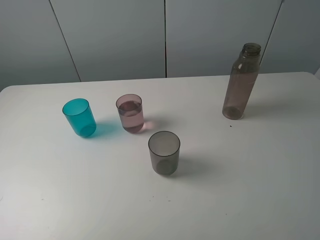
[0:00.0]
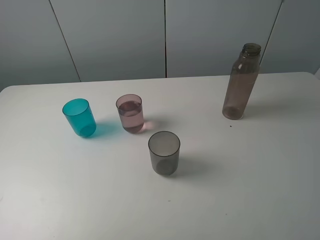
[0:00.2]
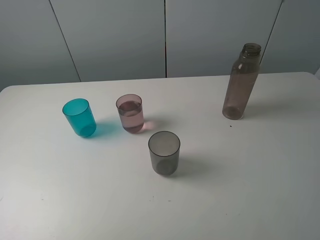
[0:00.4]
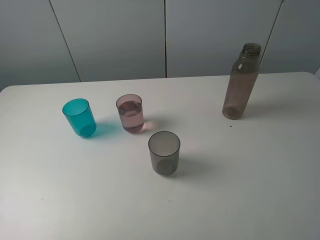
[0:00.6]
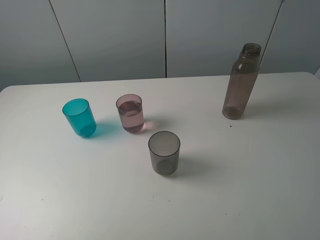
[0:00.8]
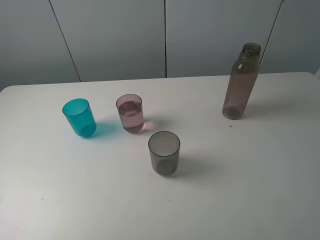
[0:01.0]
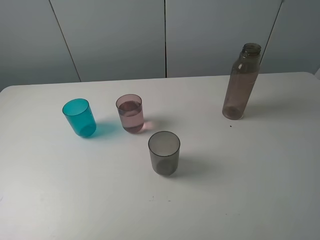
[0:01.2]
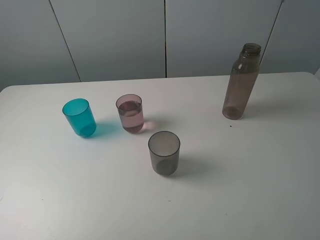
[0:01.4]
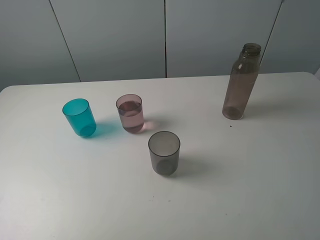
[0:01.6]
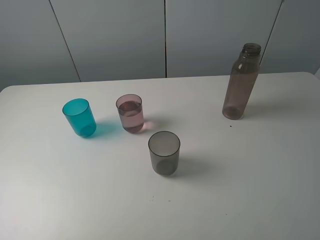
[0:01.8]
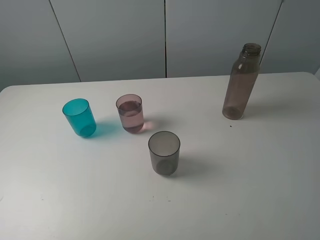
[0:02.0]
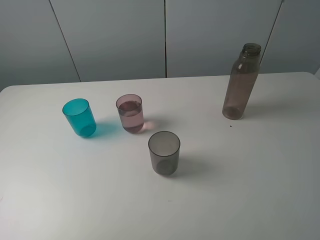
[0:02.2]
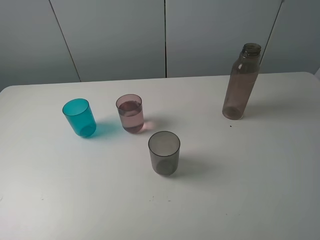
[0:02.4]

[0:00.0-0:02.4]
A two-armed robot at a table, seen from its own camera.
Task of the whole recording: pick up the bottle filled with water and pour water into the middle cup of the three cups.
0:01.2 to 0:02.4: Both grippers stay about where they are.

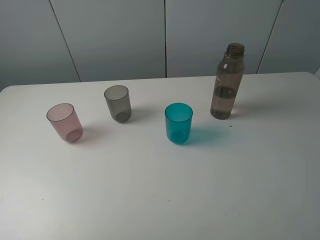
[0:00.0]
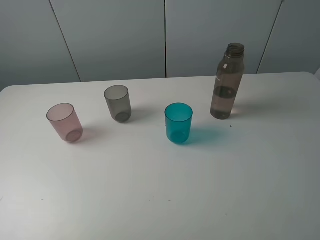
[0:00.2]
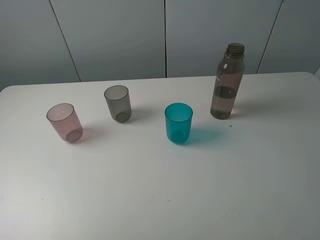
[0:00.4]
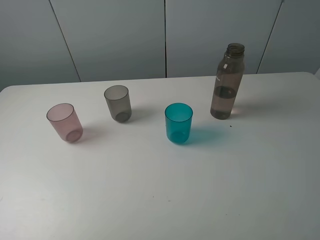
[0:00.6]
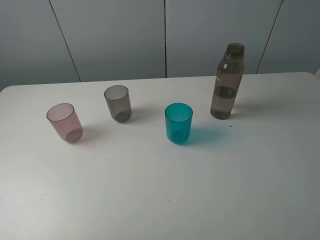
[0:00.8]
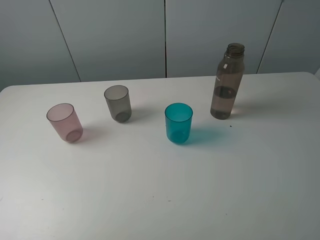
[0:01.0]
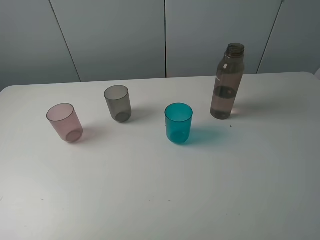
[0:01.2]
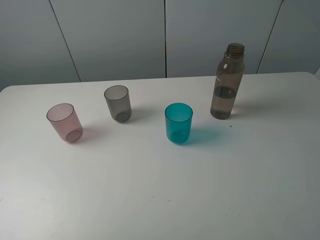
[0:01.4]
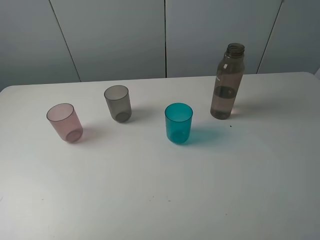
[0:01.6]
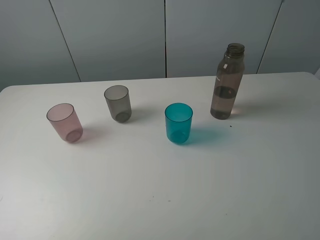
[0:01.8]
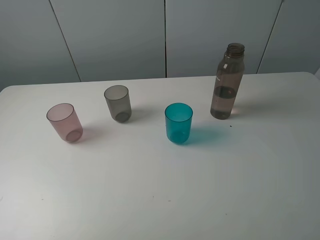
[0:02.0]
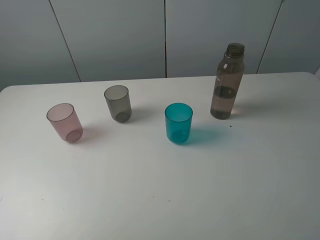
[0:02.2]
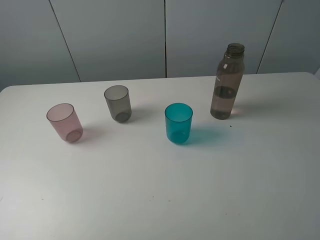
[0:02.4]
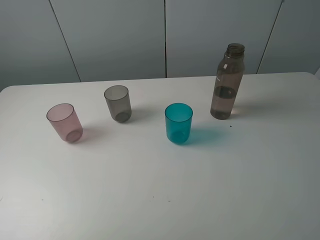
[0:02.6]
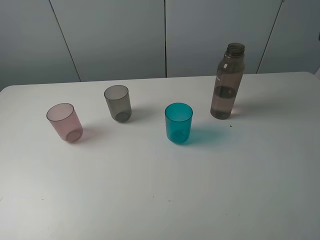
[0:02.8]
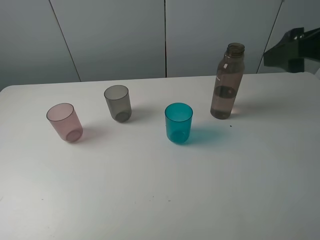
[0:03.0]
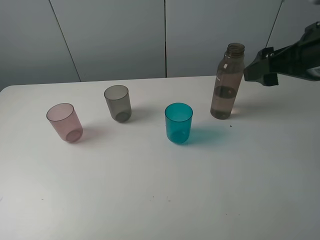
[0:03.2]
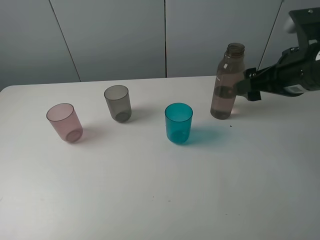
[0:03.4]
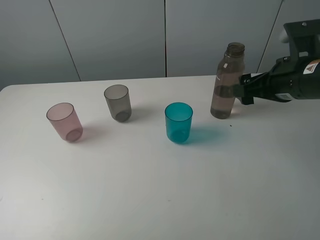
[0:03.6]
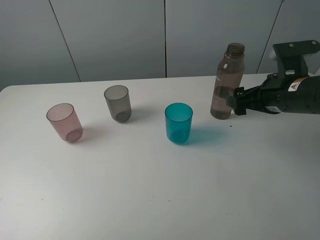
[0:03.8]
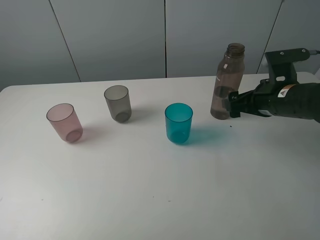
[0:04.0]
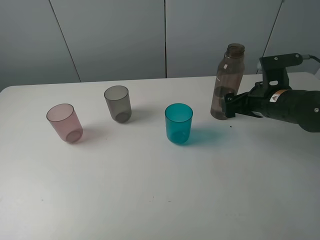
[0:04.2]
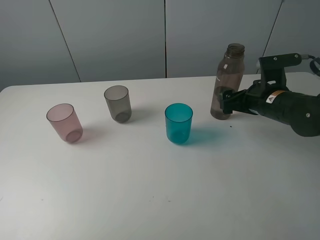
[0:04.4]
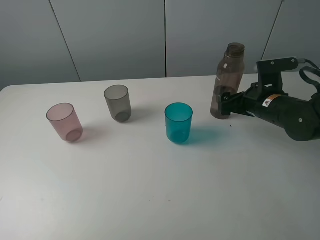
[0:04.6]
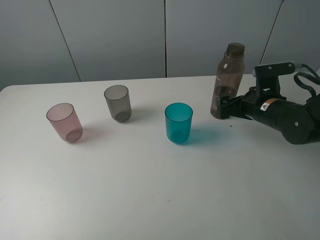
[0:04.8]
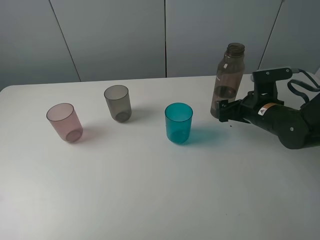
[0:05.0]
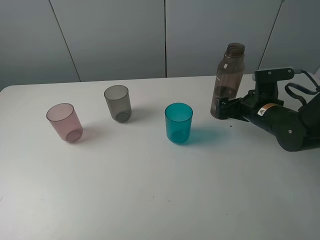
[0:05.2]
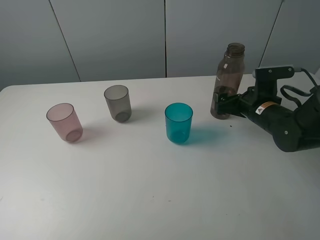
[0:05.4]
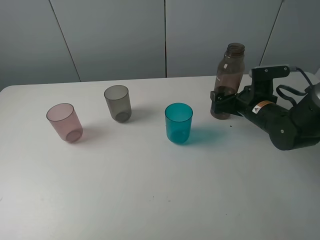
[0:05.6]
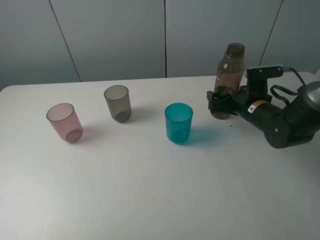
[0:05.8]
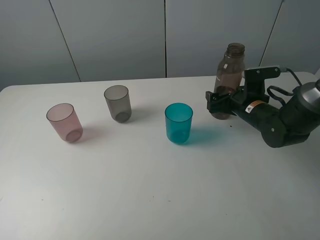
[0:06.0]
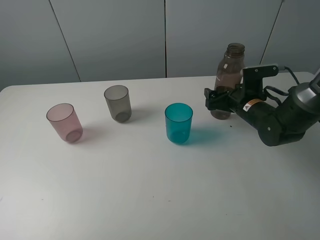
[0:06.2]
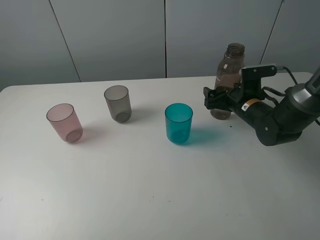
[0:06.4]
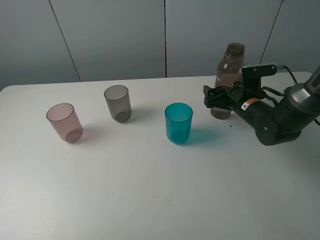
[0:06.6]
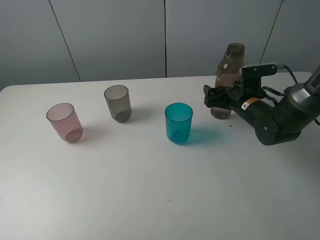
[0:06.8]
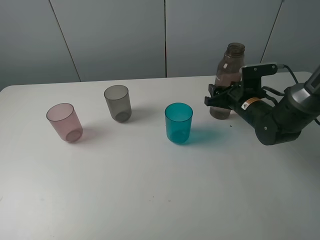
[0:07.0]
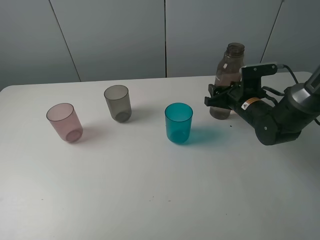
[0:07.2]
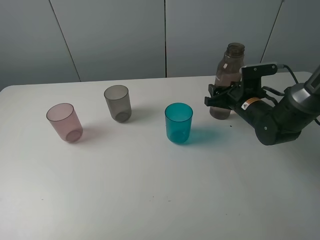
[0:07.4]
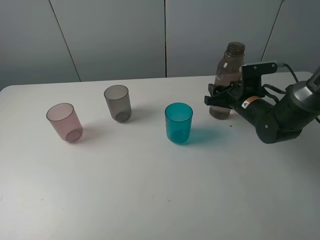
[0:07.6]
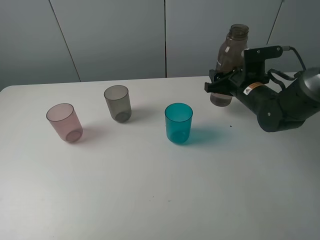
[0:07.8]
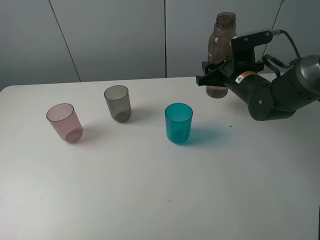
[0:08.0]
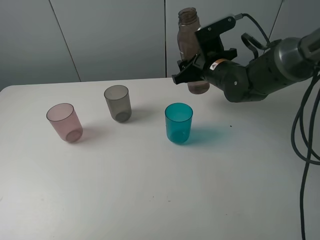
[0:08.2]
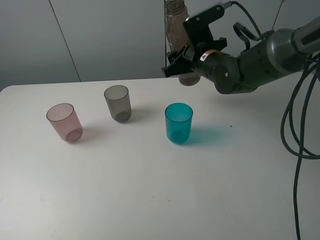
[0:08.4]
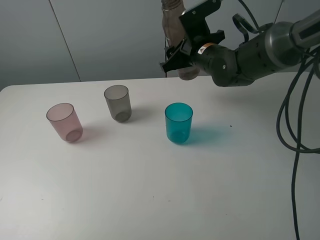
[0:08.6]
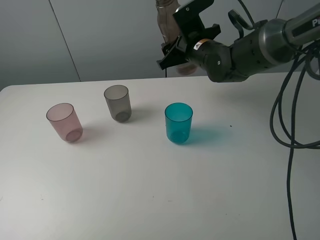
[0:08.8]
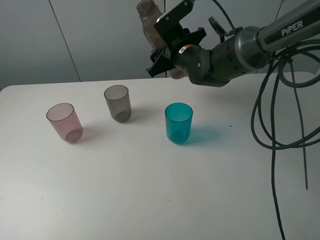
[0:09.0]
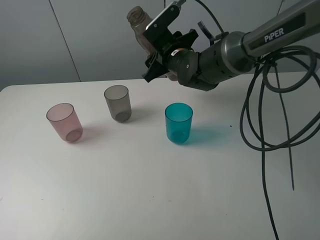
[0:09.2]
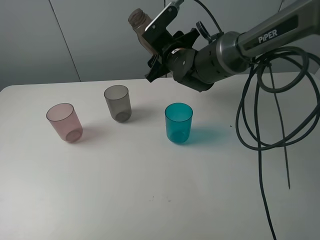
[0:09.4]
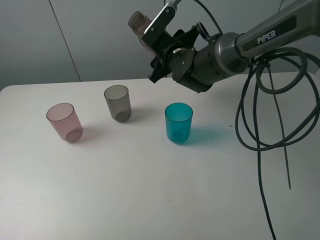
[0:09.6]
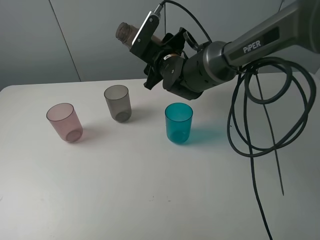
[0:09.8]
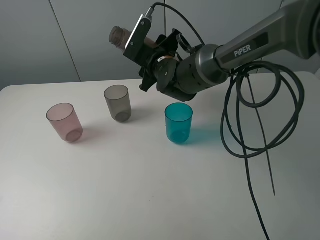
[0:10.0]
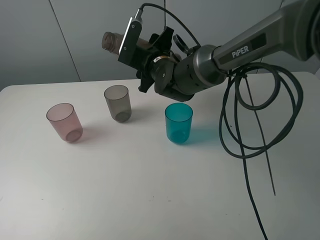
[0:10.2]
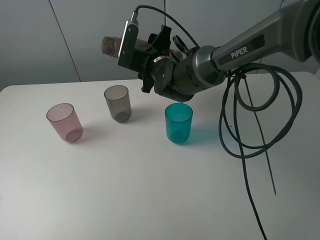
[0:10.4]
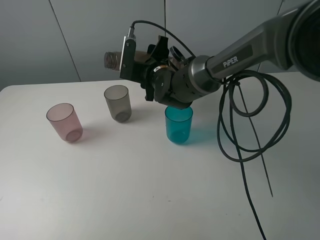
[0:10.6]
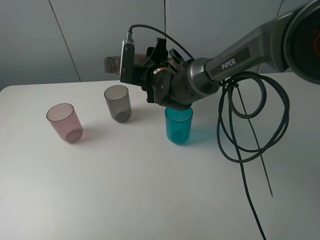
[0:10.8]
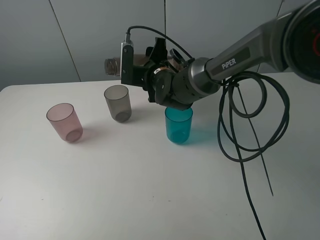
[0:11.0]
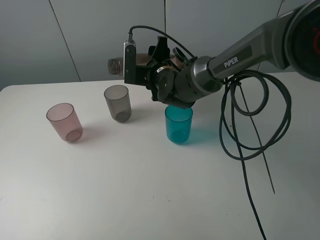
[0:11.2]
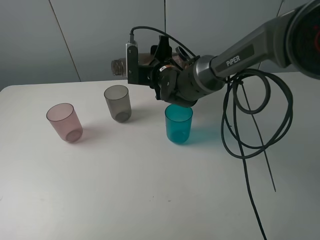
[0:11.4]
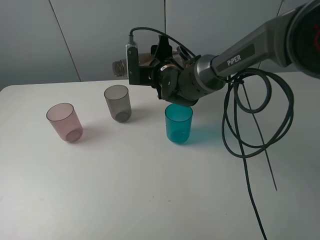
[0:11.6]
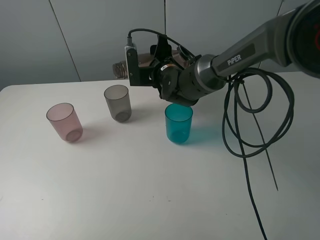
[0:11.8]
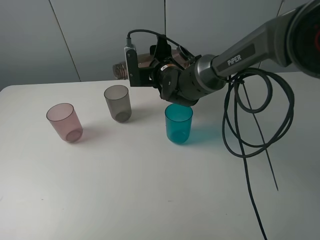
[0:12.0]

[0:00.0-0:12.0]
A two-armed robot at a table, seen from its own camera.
Task of the whole recording: pick up the bottle filled with water and pour water into the middle cup of the three cups.
Step, 0:00.0 to 0:07.2: Grasp the brown bottle with the right gripper.
0:01.6 to 0:03.0: The right gripper is displaced forward by roughly 20 cm.
0:03.0 to 0:04.4: The right gripper goes about 20 cm downward and forward.
0:04.4 to 0:06.0: The right gripper goes about 5 cm downward.
0:06.0 to 0:07.6: The right gripper closes its fingers.
0:07.6 to 0:09.0: The right gripper is displaced to the left and upward by roughly 15 cm.
0:09.0 to 0:10.4: The right gripper is displaced to the left by about 5 cm.

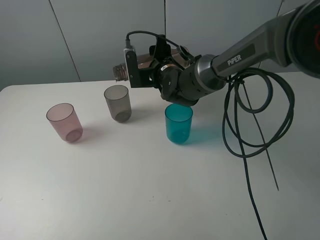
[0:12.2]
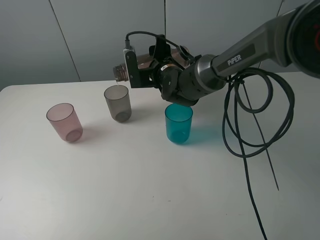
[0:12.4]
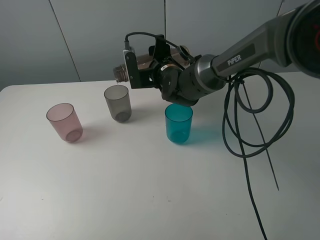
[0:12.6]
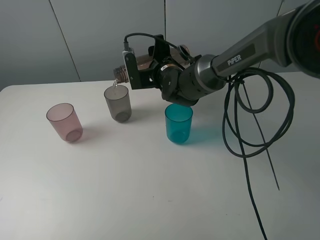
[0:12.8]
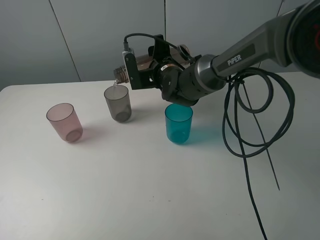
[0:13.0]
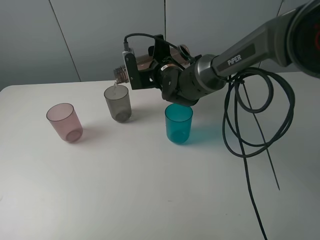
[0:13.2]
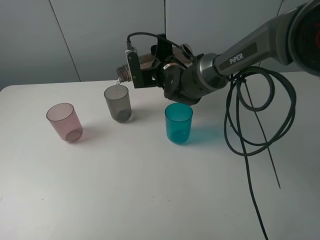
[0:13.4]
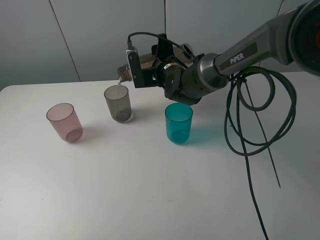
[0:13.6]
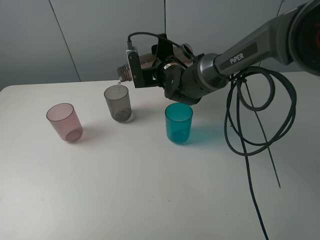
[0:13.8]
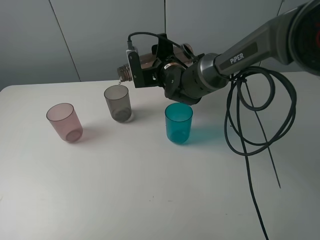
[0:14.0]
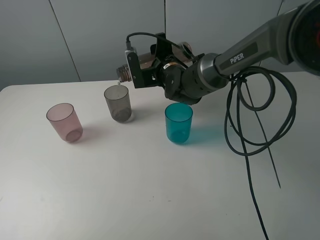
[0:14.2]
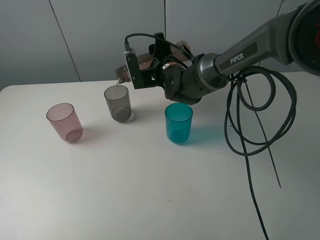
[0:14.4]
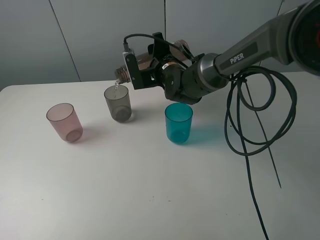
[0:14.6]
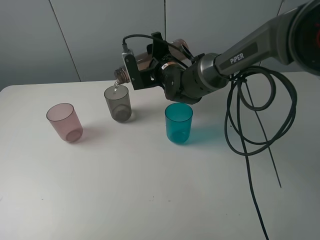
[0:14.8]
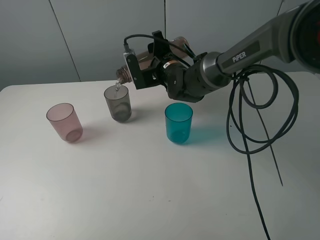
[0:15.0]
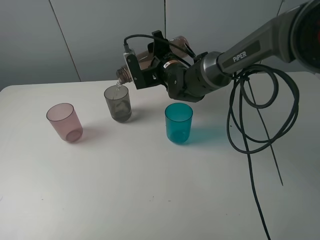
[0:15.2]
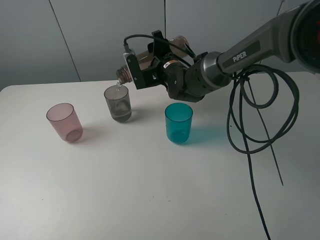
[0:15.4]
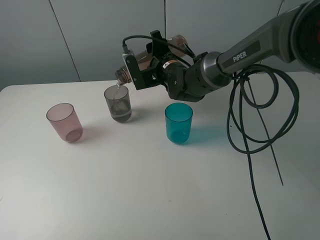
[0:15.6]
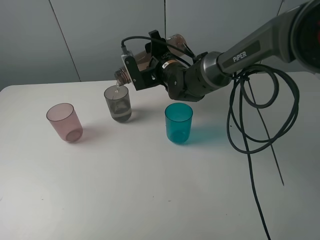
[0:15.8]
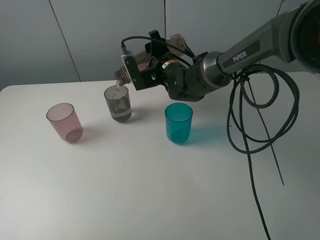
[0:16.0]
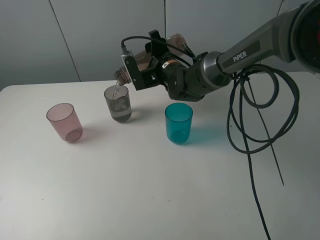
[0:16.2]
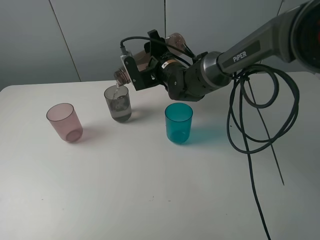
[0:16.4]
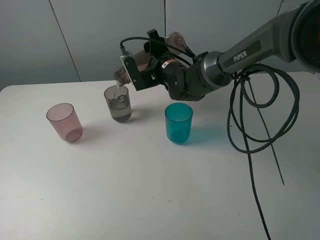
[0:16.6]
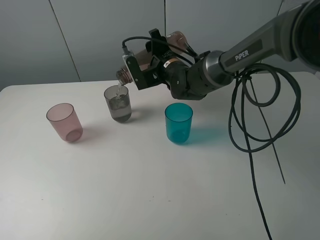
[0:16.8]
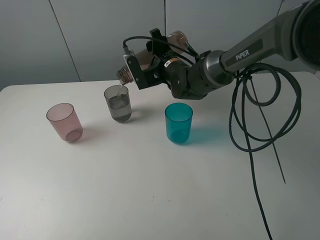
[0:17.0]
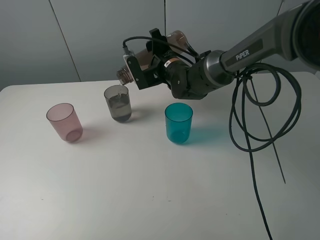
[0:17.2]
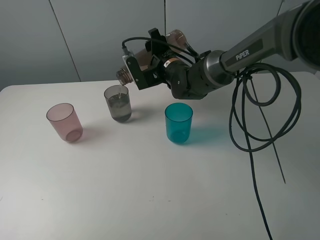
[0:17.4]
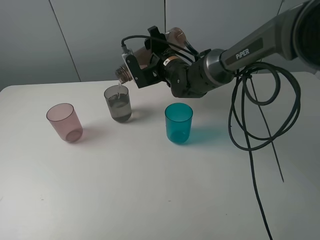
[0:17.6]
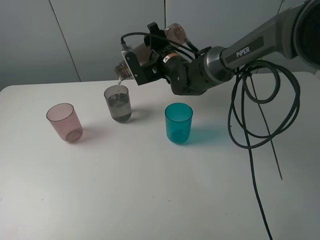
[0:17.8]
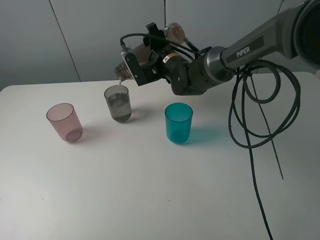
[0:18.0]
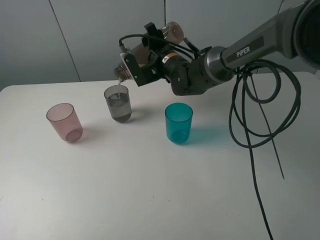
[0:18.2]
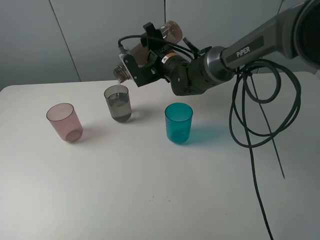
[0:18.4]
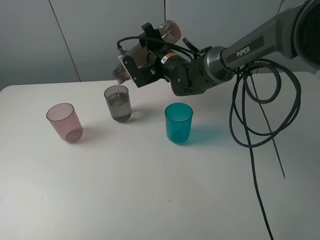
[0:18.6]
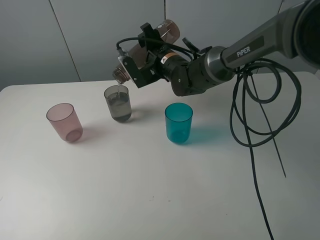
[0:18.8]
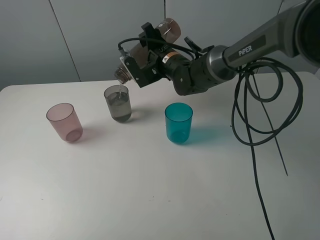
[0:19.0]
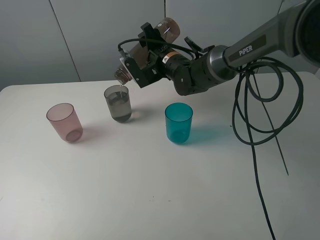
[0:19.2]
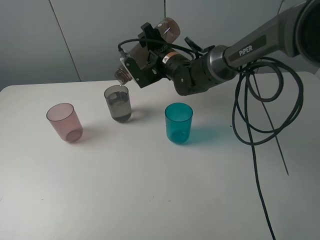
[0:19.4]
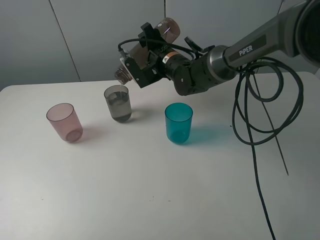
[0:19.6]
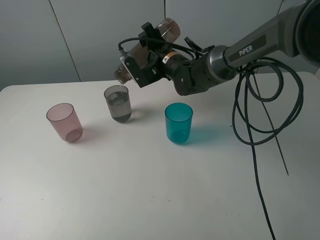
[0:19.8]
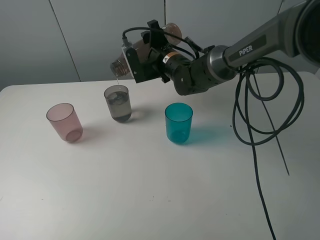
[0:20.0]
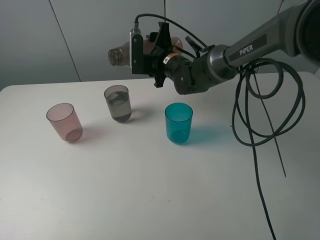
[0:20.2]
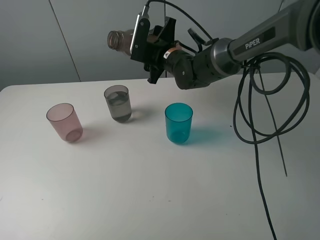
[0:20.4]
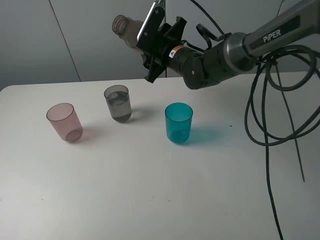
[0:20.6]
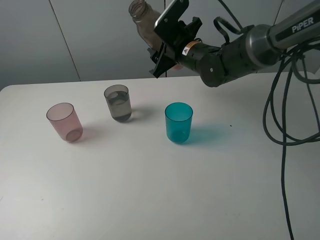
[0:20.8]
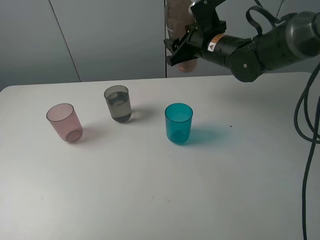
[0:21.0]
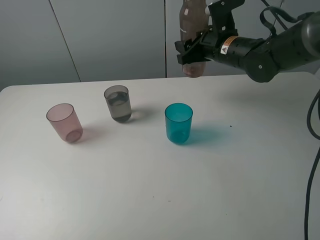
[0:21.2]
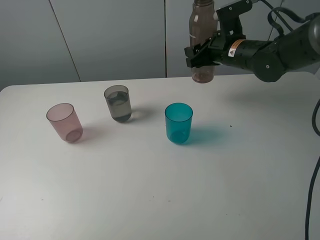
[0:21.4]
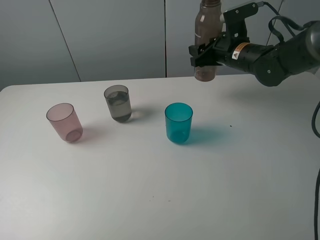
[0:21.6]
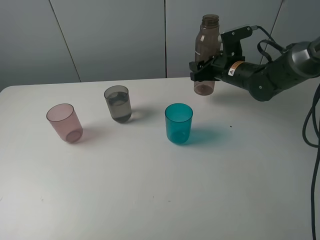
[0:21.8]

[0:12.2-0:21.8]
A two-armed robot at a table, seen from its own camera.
Task of the whole recording: pick up the bottle filled with water and pour water into the middle cup of the three cups.
0:12.2 to 0:13.8: Both grippers stay about where they are.
0:13.8 to 0:17.0: The grippers stay close to where they were, moving slightly.
0:17.0 to 0:18.6: There are only small adjustments of the grippers.
0:20.2 to 0:21.8: The right gripper moves to the right, some 15 cm.
